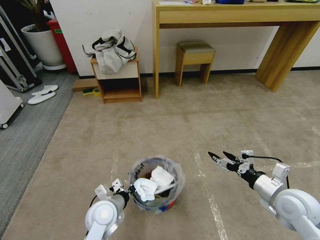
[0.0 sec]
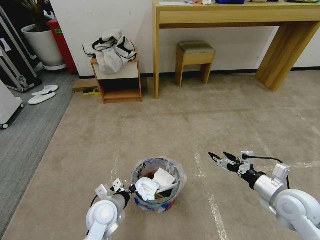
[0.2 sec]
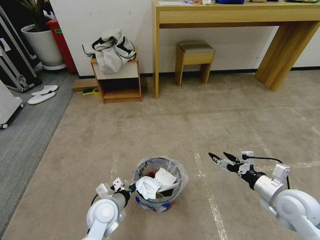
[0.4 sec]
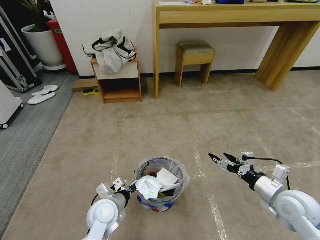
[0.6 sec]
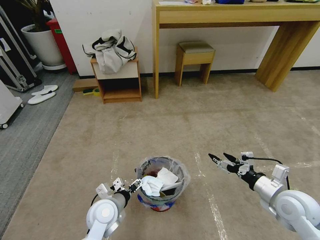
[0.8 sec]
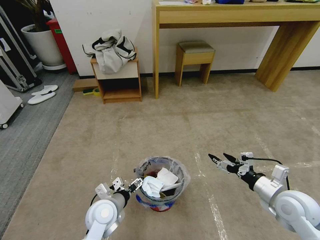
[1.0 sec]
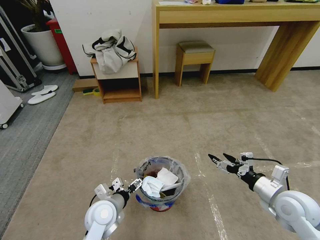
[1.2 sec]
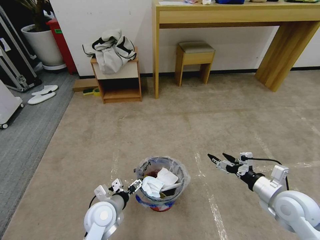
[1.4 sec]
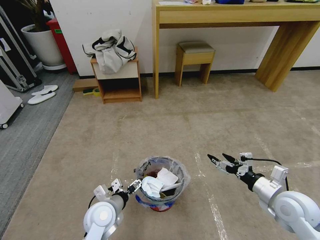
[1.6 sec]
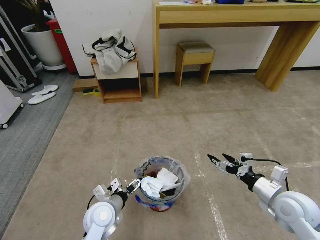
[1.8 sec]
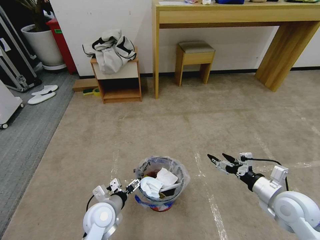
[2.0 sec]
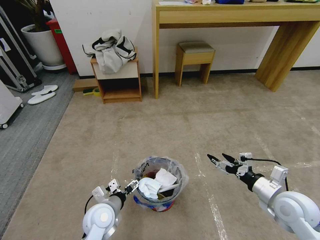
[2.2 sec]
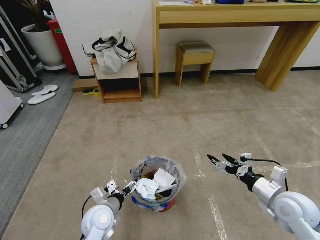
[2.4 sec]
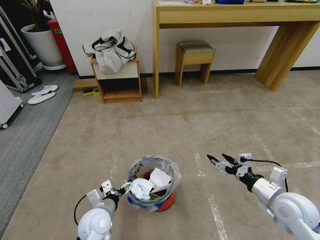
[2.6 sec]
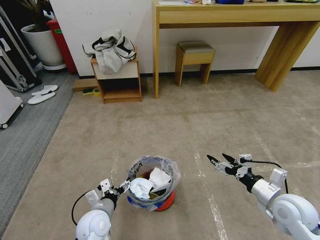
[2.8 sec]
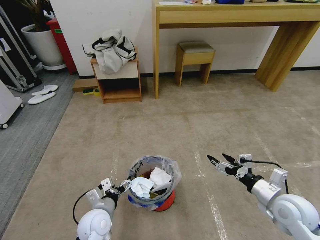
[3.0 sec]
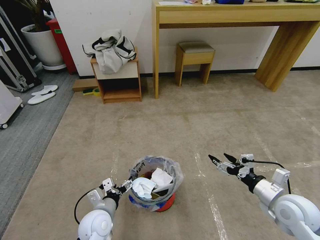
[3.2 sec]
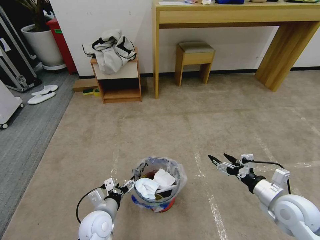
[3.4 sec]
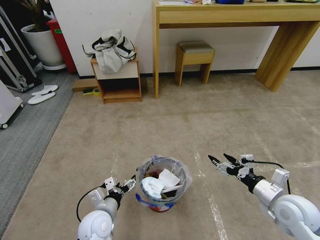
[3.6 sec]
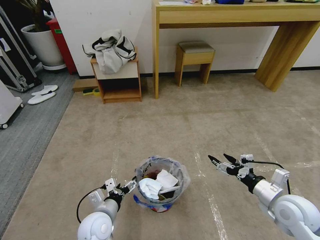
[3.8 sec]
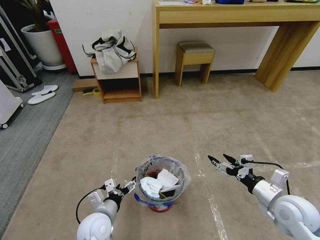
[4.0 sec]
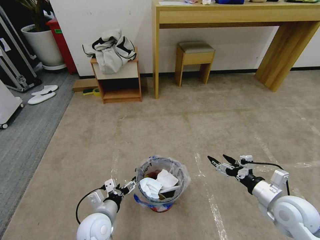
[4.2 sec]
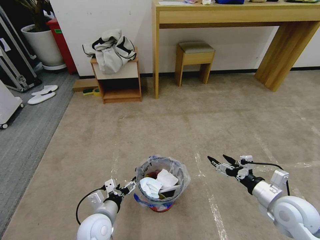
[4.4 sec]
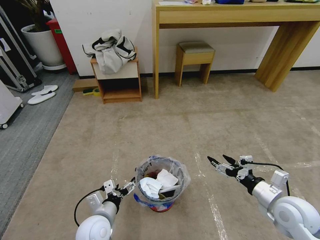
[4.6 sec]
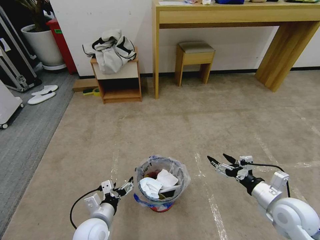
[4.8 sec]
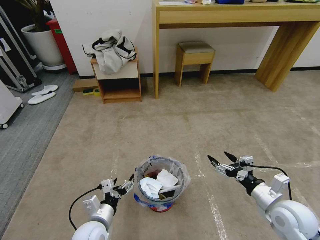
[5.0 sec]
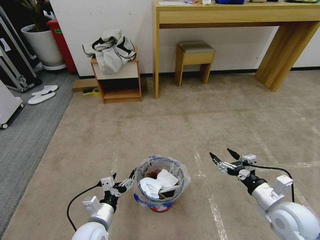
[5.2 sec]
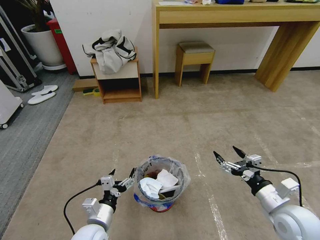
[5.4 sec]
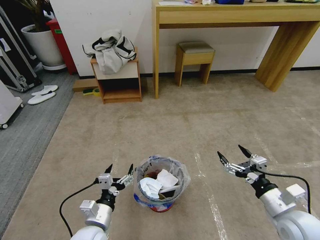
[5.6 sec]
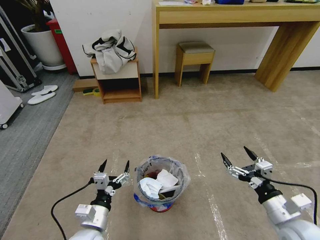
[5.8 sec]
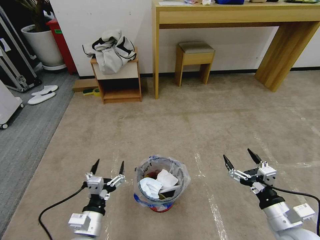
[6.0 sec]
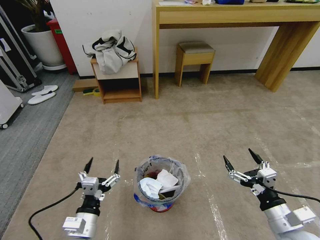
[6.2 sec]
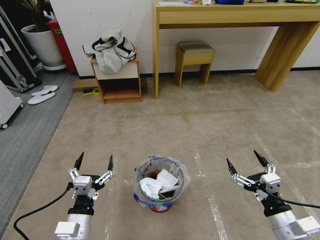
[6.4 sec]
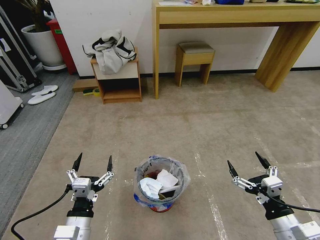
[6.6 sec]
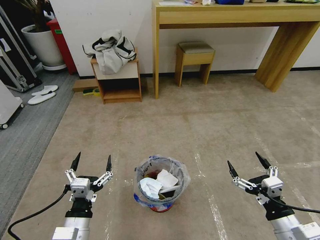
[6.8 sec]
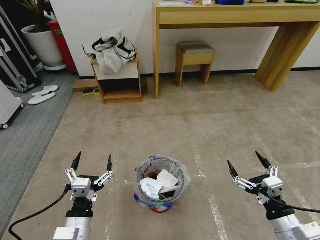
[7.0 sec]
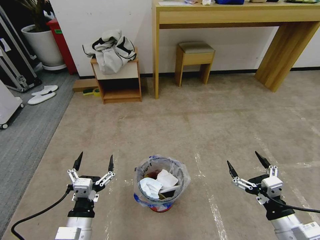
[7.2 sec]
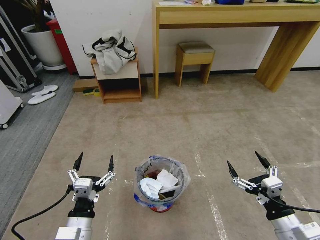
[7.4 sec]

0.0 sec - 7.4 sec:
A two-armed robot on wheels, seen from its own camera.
Task of the whole recording: Pick up the trash bin and place the garbage on the floor into it.
0.0 sec - 1.4 sec: The left gripper opens its fingers.
1.4 sec - 4.4 sec: There are only small adjustments of the grippers.
4.4 sec - 6.0 sec: Both grippers travel together backward, roughly 5 cm.
6.0 sec - 7.4 sec: The grippers make only small movements.
